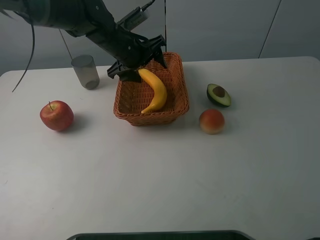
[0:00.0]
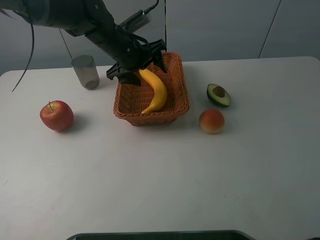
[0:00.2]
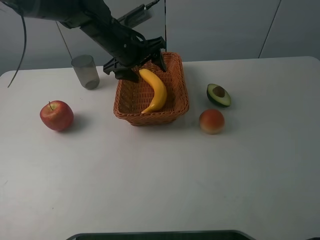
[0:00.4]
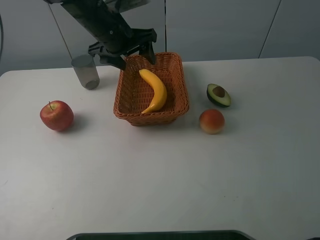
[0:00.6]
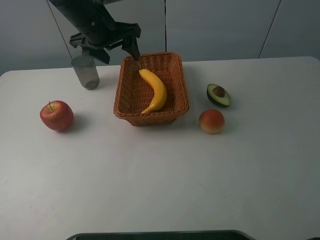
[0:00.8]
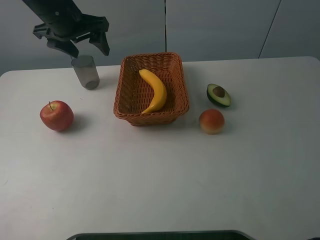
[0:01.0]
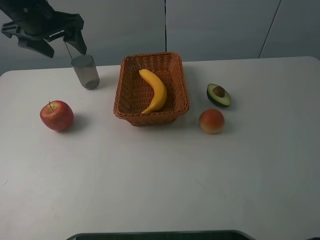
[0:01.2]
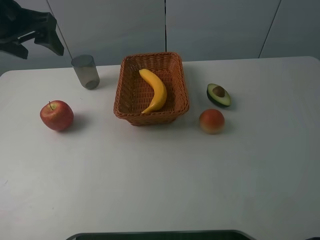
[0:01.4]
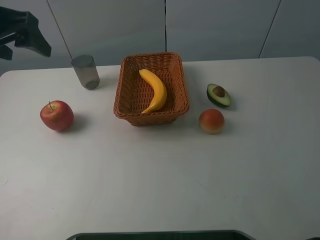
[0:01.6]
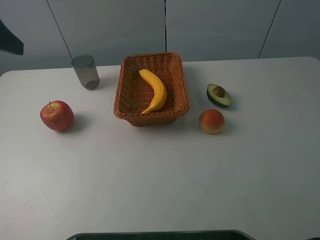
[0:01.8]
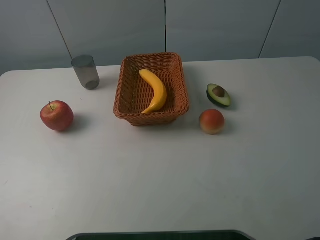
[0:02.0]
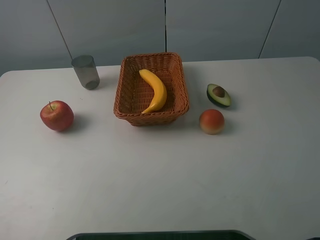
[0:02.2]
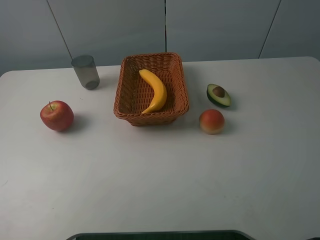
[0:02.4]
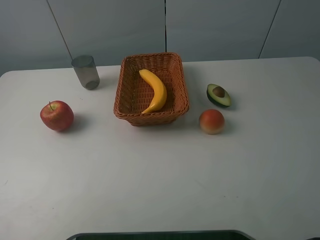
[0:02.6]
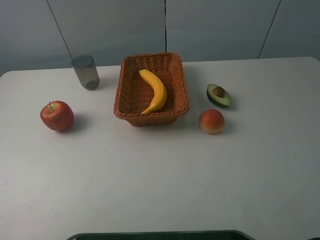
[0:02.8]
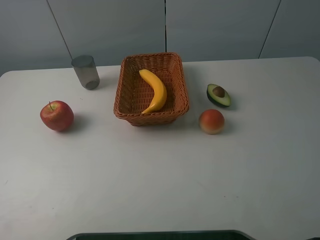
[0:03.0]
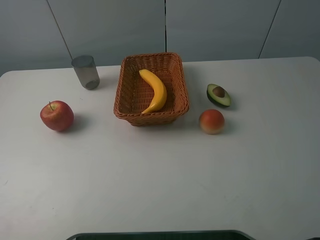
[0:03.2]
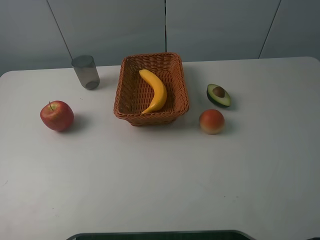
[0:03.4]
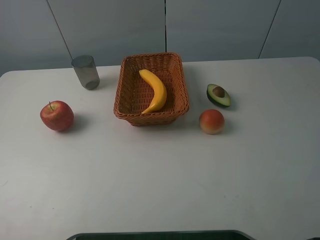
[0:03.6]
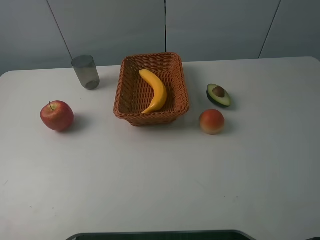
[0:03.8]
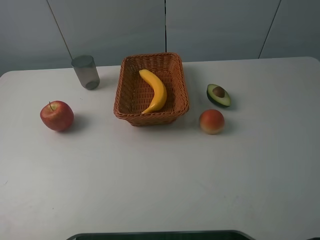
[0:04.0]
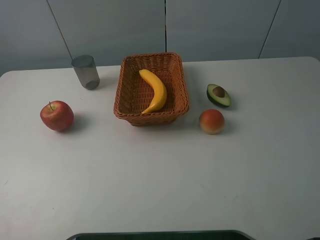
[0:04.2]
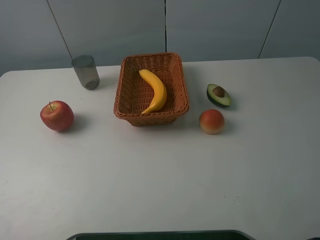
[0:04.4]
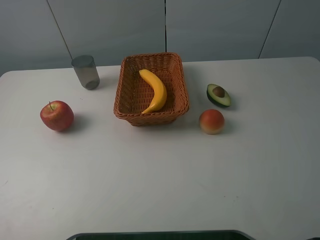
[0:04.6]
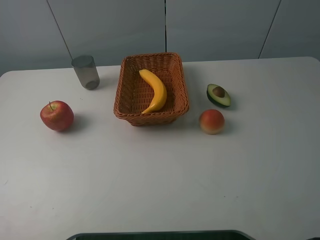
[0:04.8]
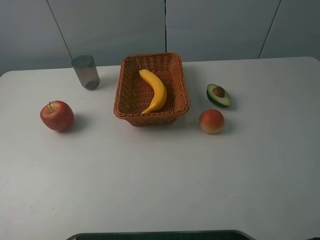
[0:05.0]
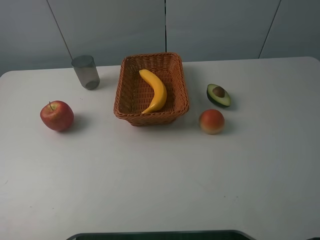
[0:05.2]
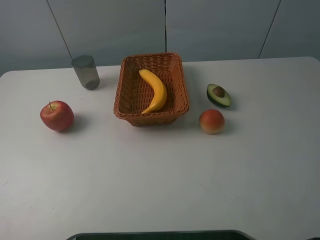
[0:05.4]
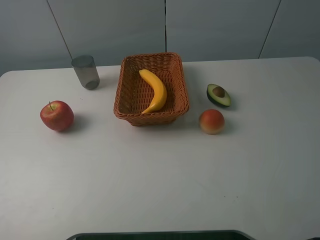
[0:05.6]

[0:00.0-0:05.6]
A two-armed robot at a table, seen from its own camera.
0:00.0 to 0:01.4: The left gripper is displaced to the left, upward and backward by about 20 cm.
0:01.4 to 0:02.8: The left gripper heads backward, covering some 30 cm.
0:04.2 to 0:05.6: Both grippers stay about where they are.
